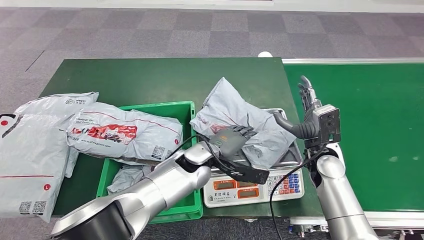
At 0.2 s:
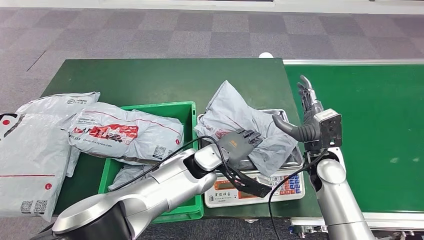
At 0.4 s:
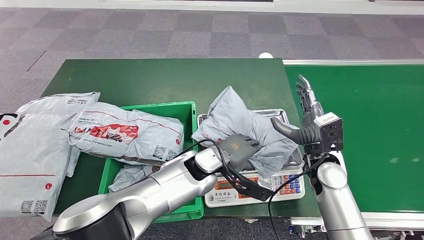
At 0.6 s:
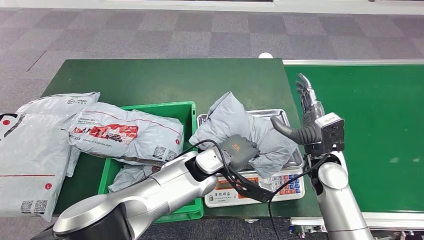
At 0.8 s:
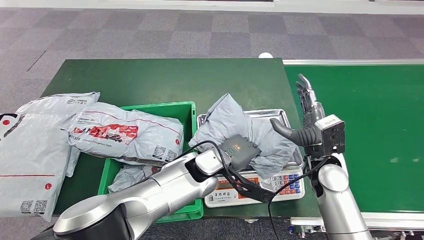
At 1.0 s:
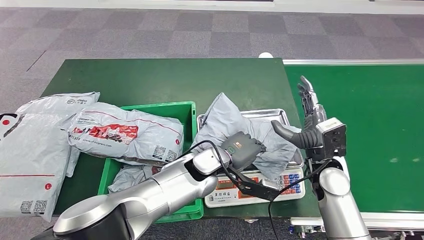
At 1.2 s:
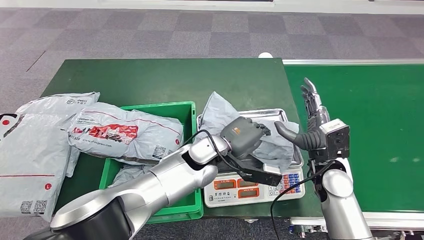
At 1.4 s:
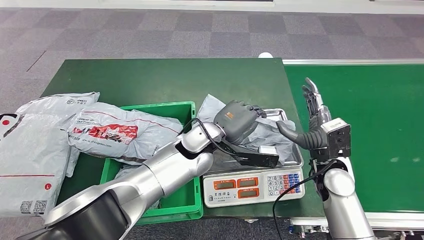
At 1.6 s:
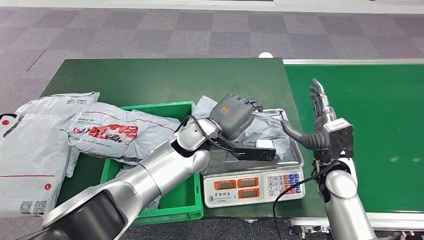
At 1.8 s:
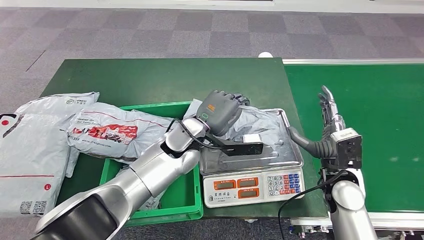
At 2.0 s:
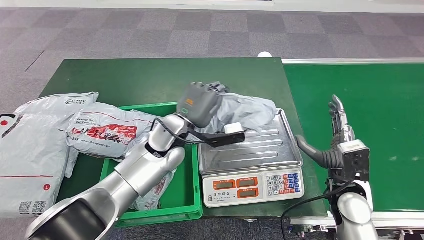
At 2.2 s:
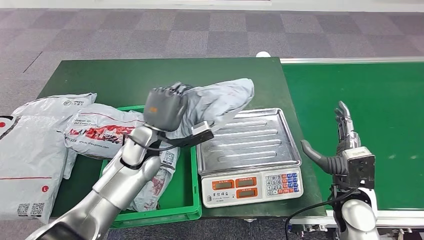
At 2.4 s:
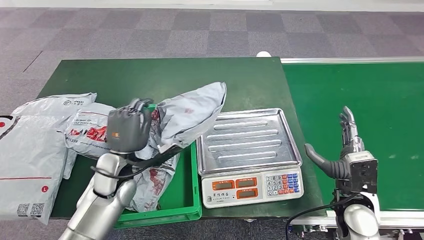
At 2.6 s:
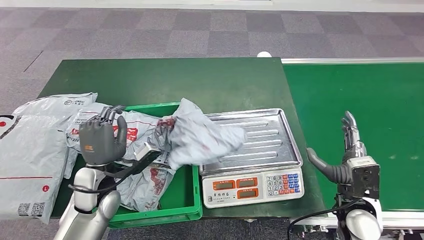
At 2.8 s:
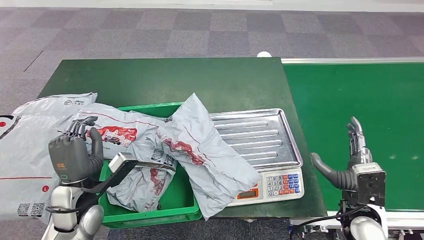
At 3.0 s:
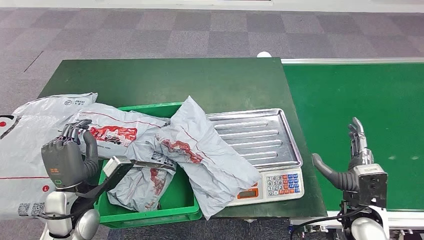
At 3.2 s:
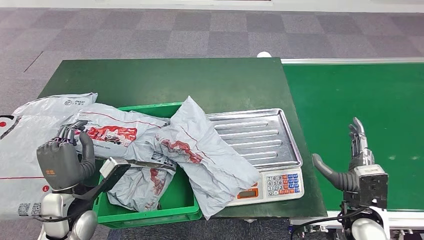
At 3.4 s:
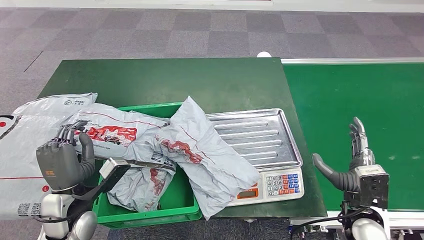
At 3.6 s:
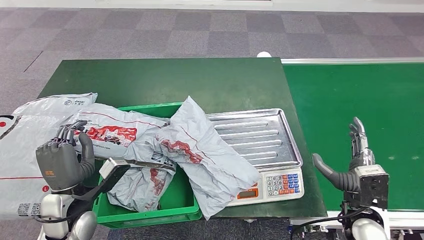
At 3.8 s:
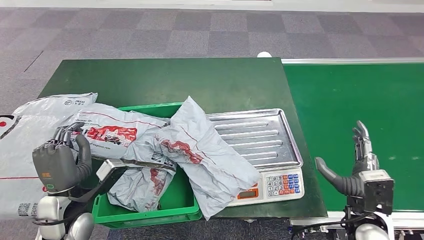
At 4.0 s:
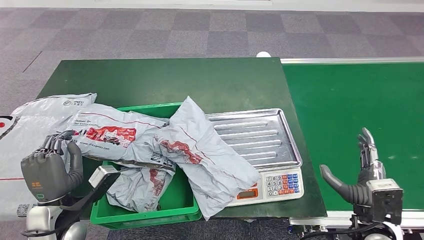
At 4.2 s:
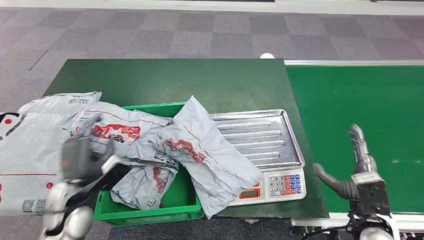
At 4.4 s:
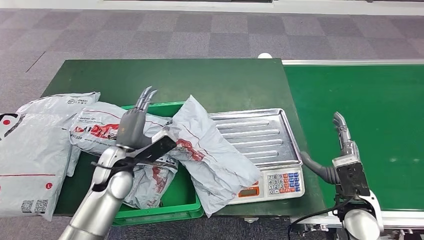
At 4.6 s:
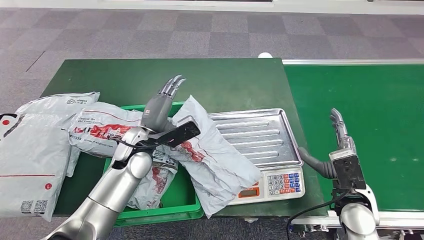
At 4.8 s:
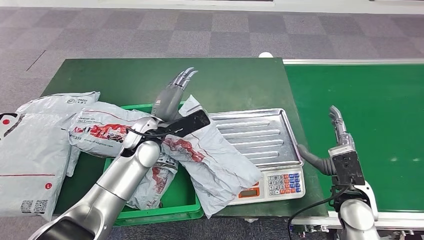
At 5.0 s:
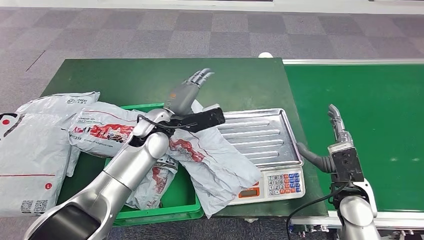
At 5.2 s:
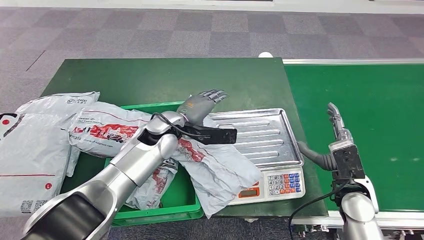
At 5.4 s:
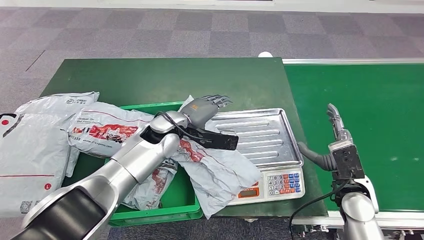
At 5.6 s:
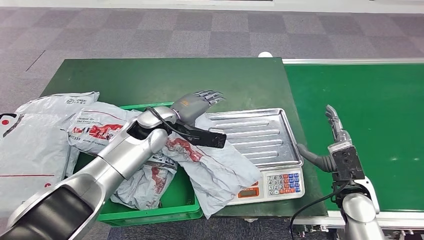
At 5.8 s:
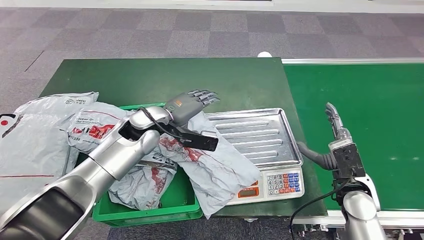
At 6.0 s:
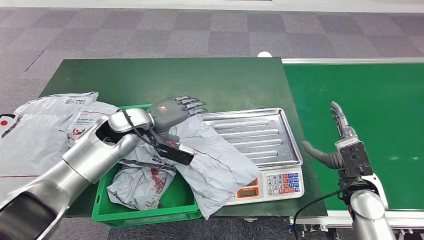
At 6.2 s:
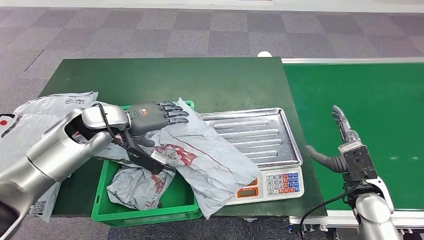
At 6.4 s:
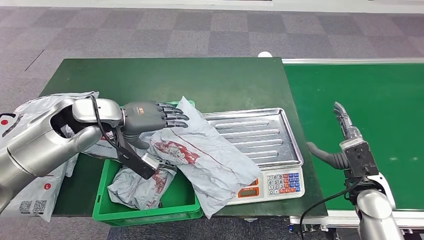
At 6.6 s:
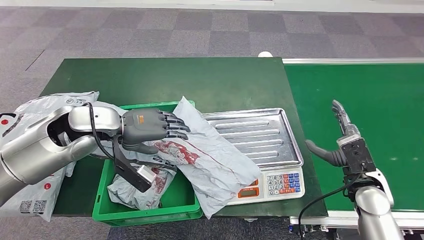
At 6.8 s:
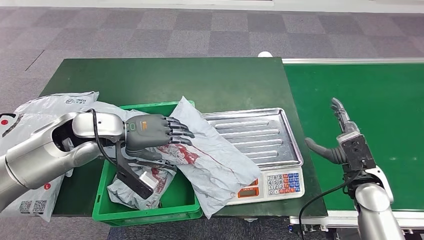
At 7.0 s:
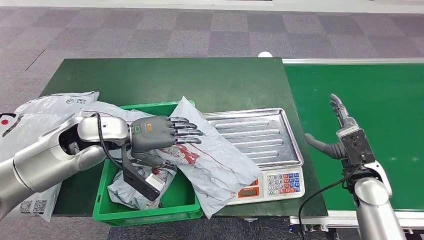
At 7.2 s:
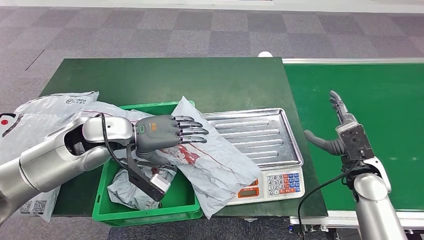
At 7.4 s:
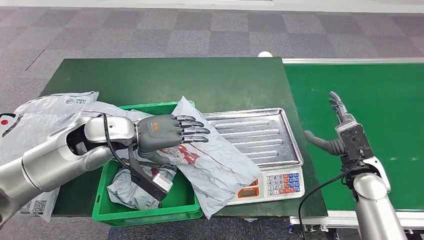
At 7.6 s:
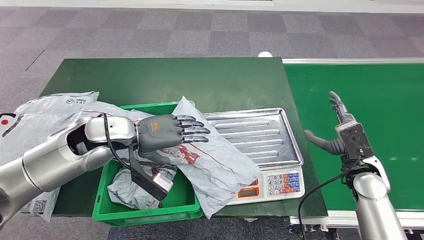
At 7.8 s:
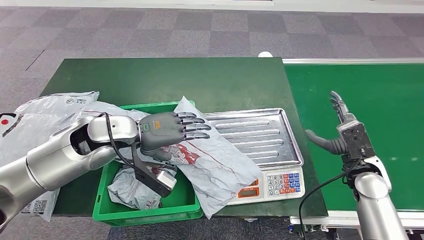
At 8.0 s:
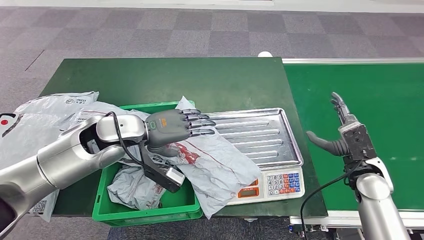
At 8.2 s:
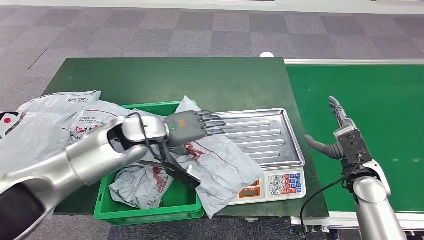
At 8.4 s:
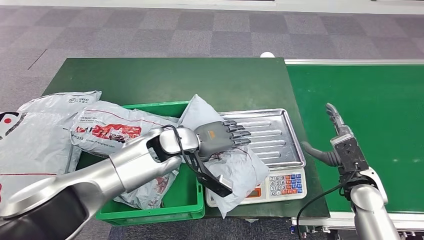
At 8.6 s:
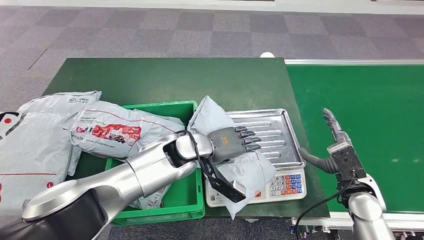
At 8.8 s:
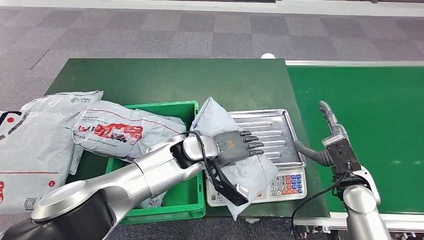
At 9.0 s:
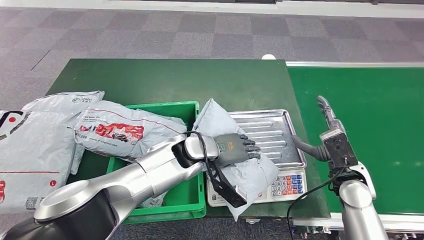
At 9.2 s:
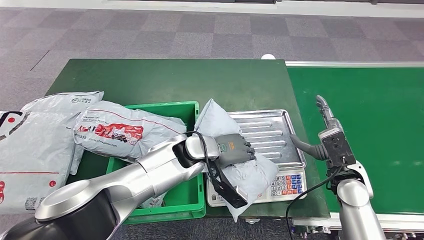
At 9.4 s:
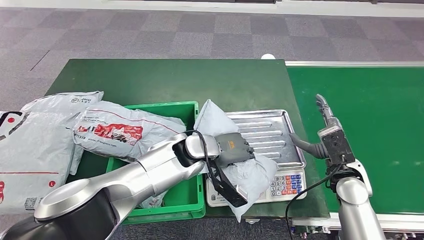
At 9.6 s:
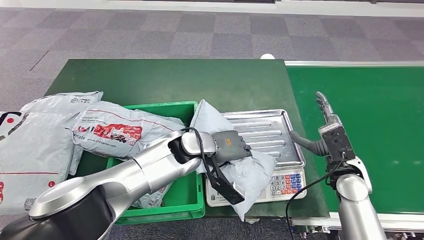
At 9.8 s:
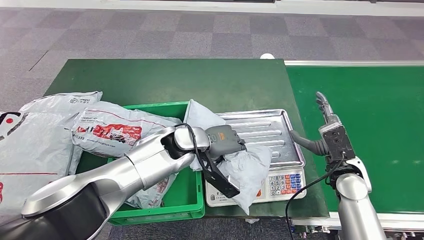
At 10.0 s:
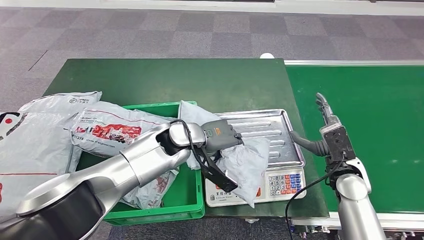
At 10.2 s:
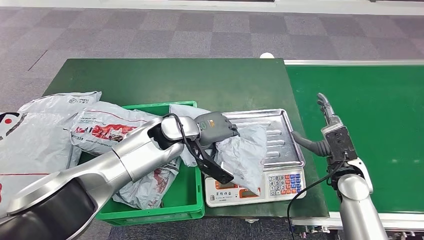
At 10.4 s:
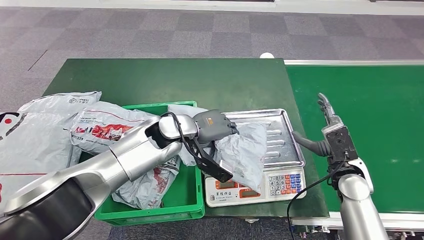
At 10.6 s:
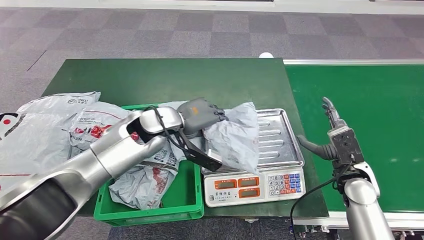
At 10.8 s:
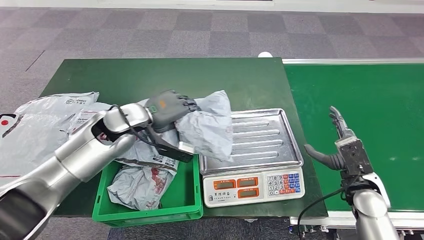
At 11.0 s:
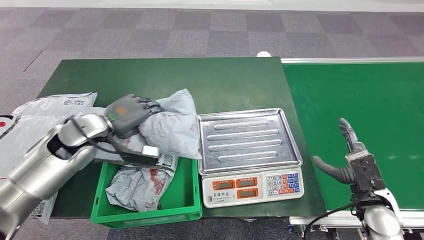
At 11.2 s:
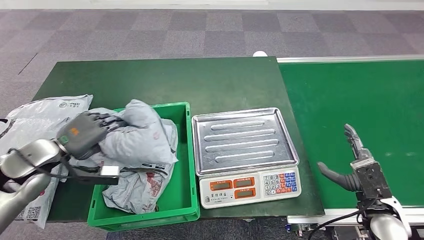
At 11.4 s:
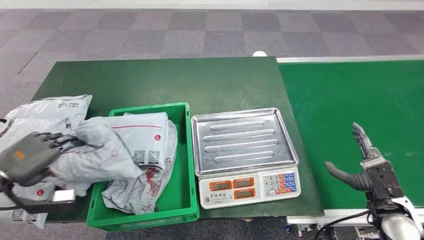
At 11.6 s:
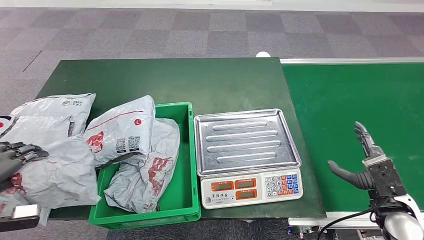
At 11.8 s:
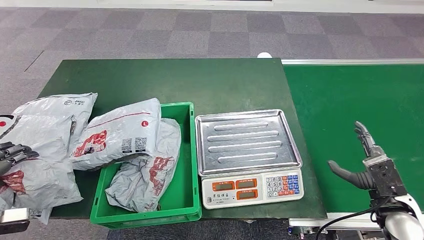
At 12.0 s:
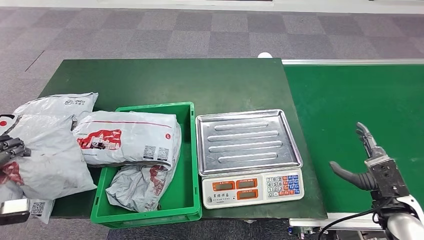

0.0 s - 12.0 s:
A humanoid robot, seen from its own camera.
Step, 0.0 s - 2.4 s: Pick up the parcel from the inbound machine.
Step, 9.6 s - 11.2 s: Pick up the parcel from the inbound machine.
6.0 s - 7.6 s: The left hand moves roughly 5 cm.

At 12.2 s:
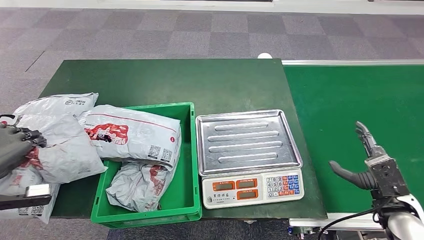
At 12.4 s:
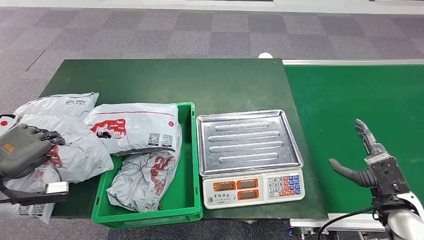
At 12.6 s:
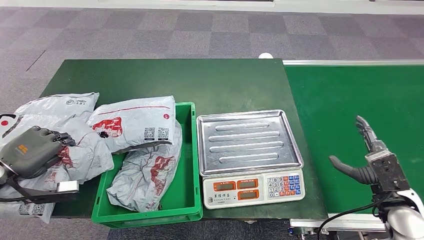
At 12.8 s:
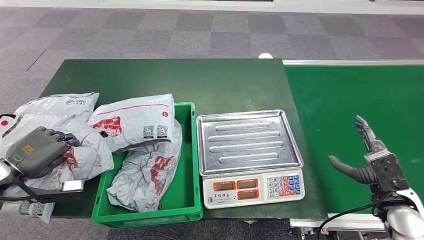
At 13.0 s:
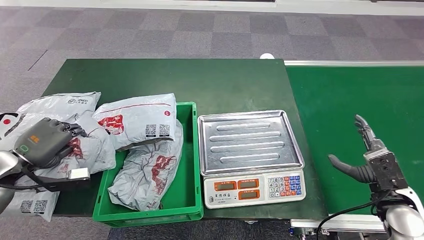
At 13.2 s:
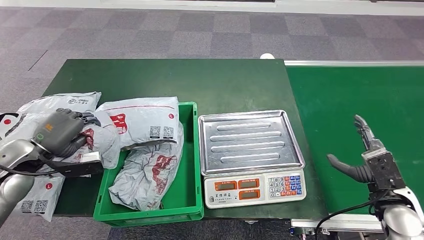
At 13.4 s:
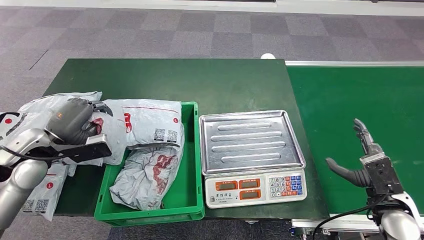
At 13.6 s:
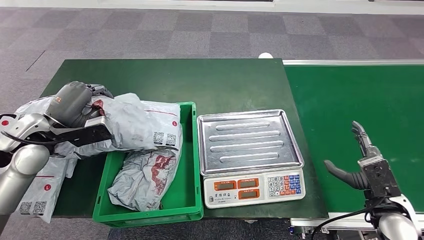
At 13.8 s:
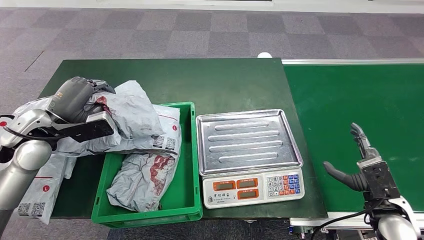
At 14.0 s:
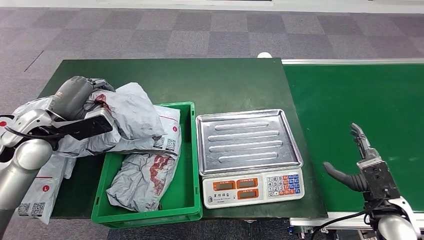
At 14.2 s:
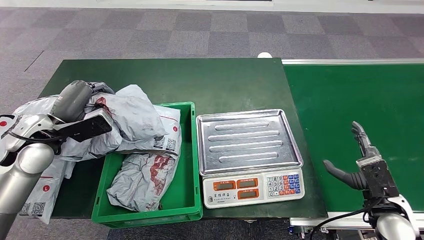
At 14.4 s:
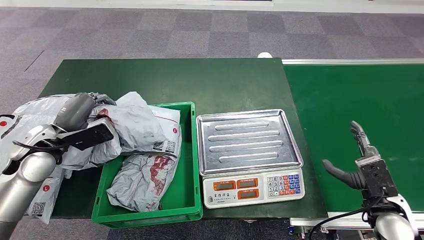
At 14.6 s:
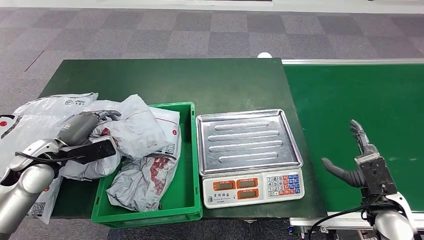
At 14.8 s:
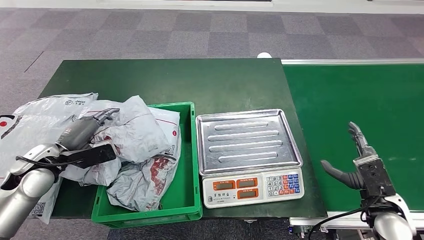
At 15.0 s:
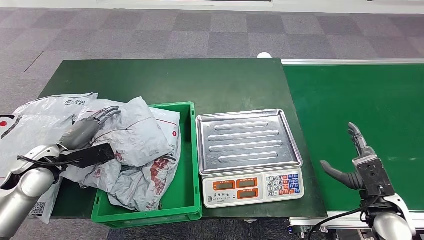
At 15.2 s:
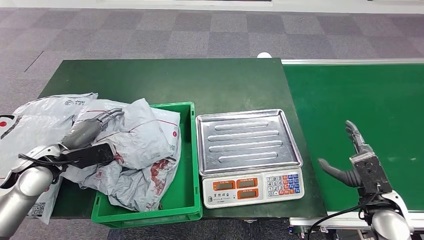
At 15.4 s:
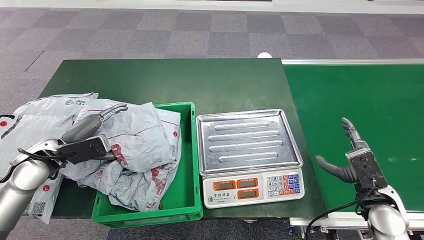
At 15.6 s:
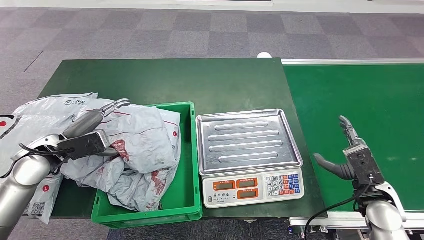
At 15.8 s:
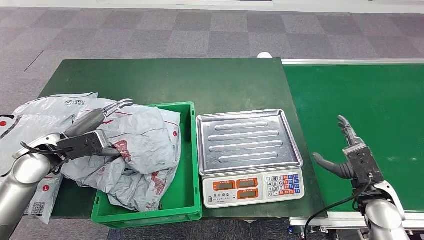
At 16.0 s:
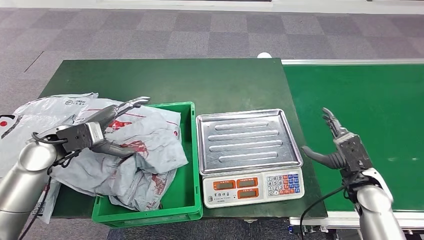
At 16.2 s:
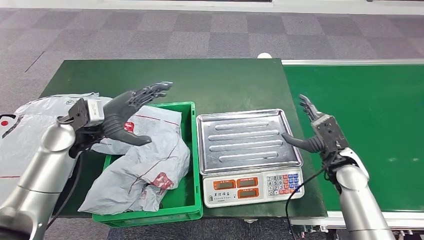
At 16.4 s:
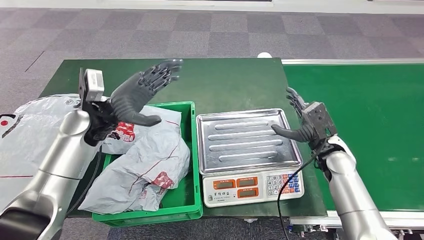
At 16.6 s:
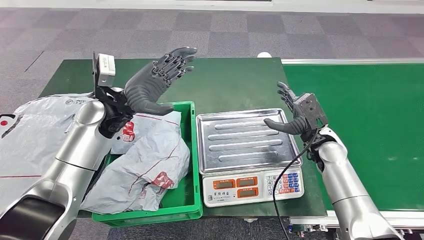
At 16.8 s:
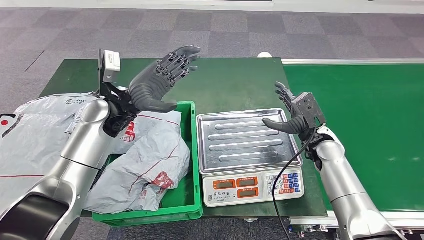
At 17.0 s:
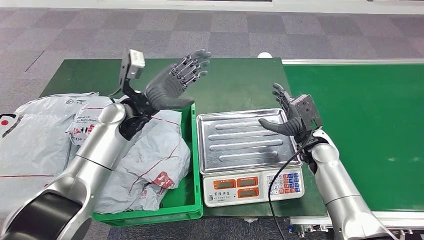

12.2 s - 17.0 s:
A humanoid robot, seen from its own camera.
Step, 12.2 s - 17.0 s: Place the parcel into the delivery box.
13.8 s - 15.4 s: The left hand moves downward, approximately 5 cm.
